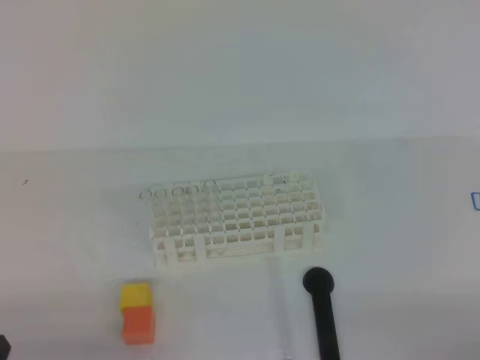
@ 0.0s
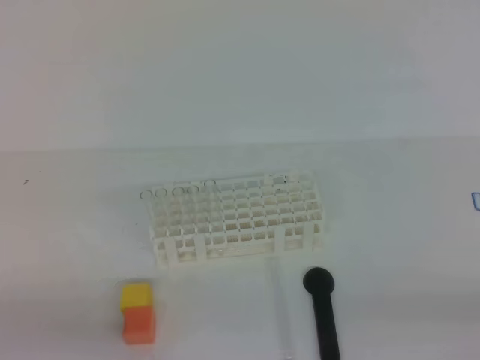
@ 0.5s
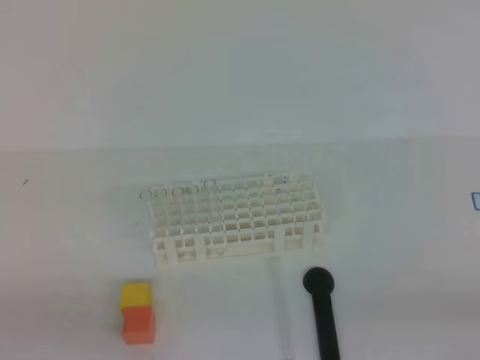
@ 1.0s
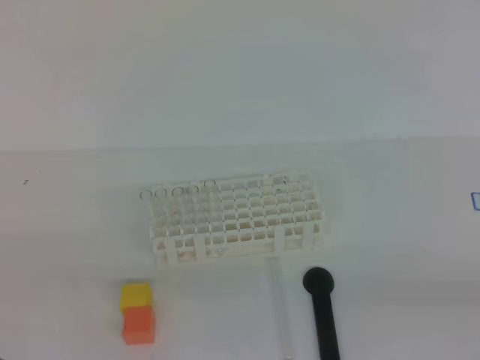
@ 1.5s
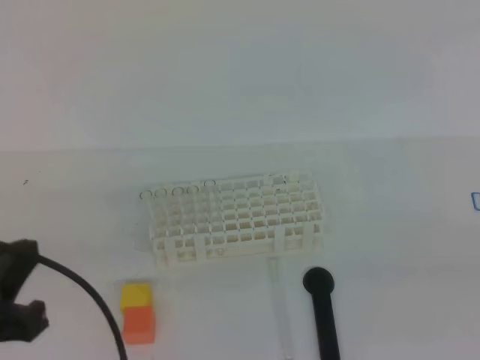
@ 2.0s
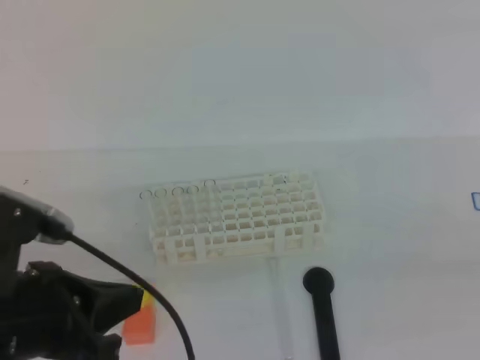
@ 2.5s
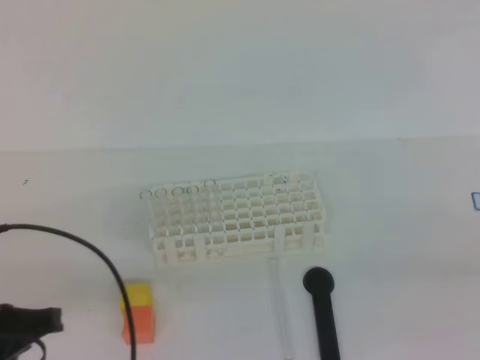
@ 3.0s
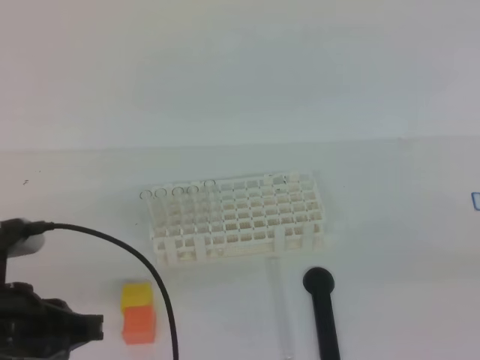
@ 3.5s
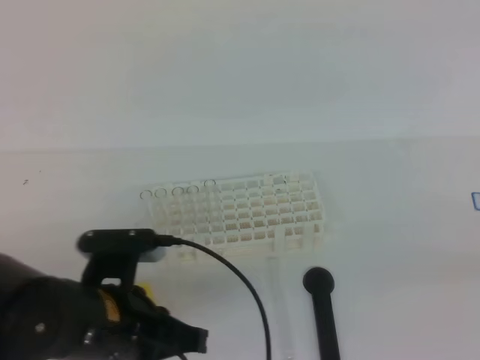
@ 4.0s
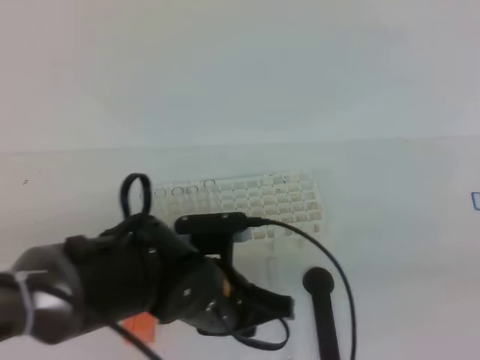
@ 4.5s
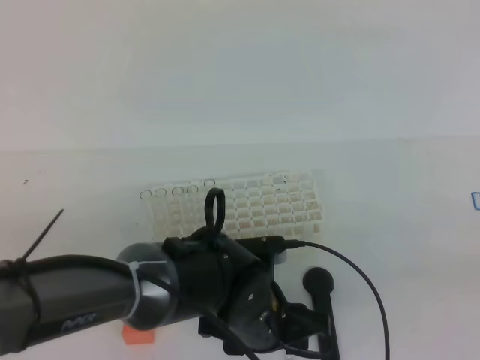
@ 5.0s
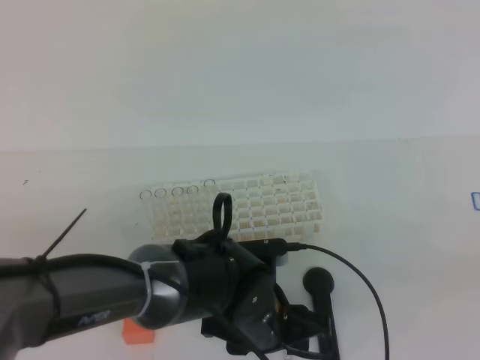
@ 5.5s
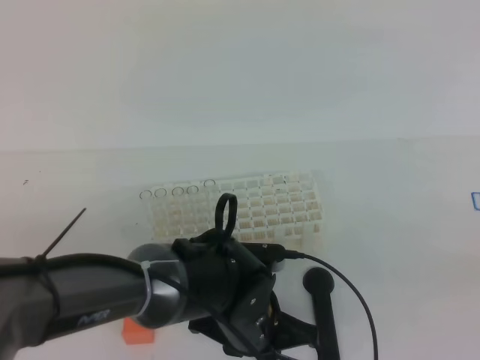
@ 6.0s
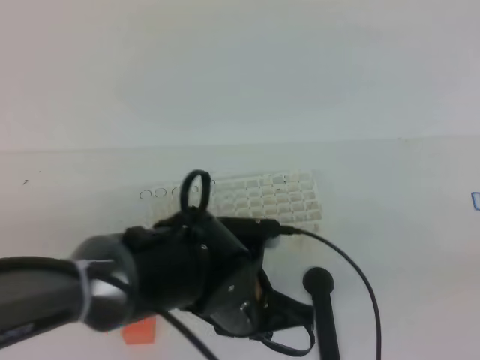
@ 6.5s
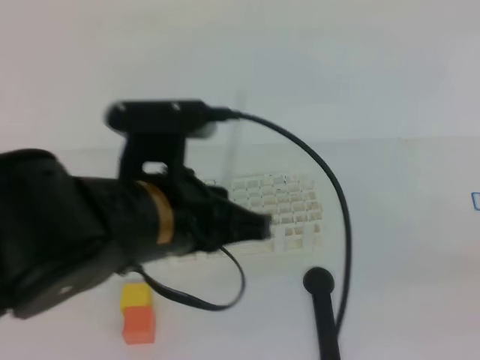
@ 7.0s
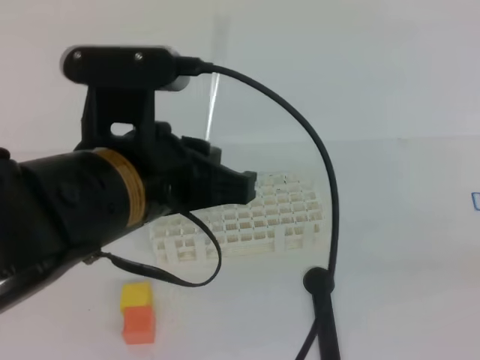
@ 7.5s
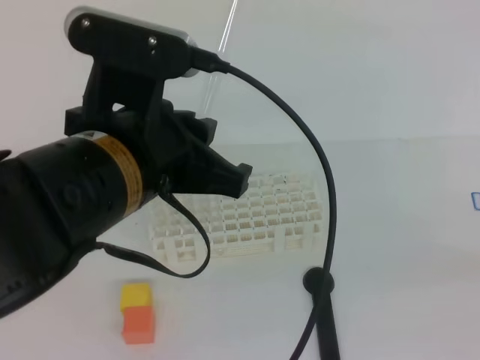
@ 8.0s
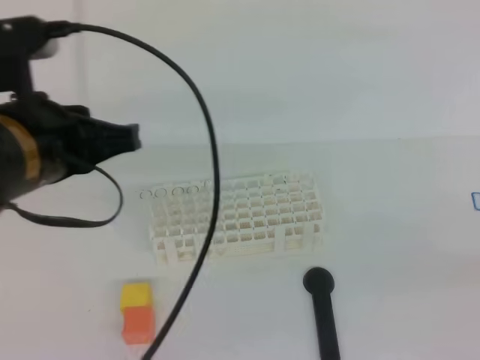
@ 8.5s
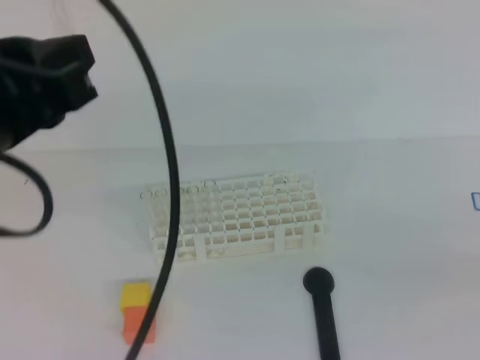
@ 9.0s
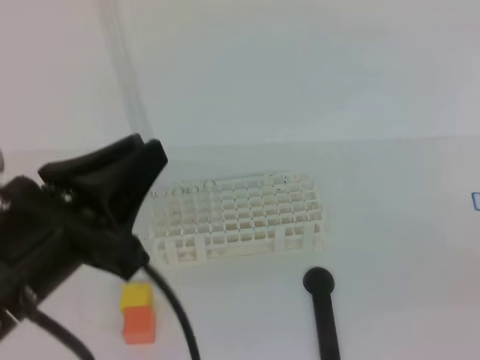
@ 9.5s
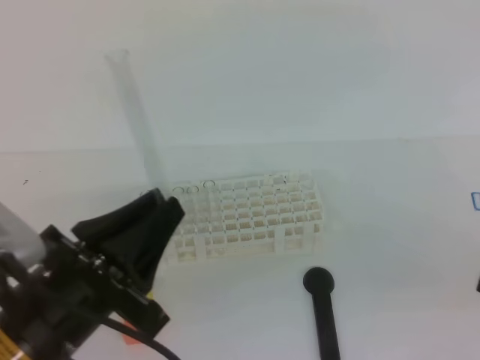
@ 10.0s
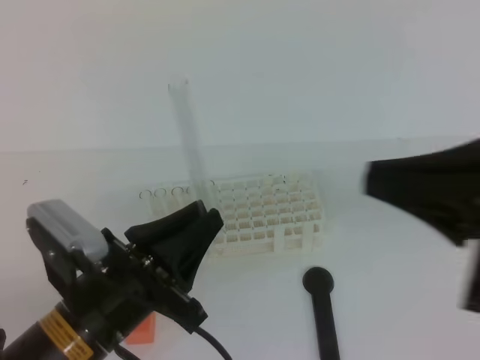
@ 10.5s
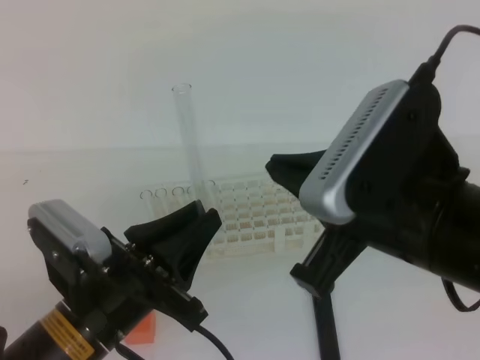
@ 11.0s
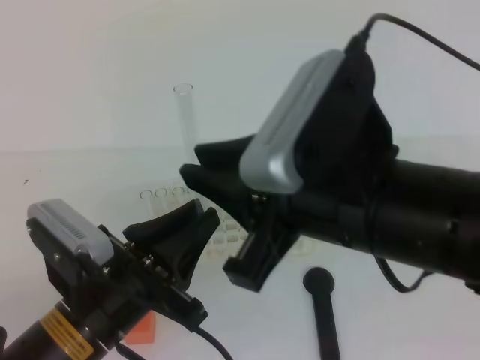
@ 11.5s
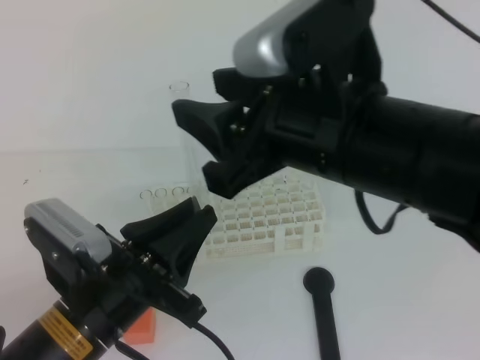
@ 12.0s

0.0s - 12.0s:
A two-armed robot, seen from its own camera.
0.0s - 2.0s: The left gripper travels upward and forward by roughly 15 cm.
2.0s - 4.0s: The left gripper goes approximately 15 cm to the right, downward and forward.
4.0s - 6.0s: The left gripper shifts roughly 15 cm to the right and downward, and opens, then closes once more.
6.0s - 8.0s: The left gripper shifts about 25 cm upward.
8.0s - 10.0s: The left gripper is displaced downward, to the left and backward by approximately 15 cm. Meanwhile the right gripper travels to the left by some 5 cm.
10.0s - 12.0s: The right gripper goes approximately 25 cm to the left and forward, and opens.

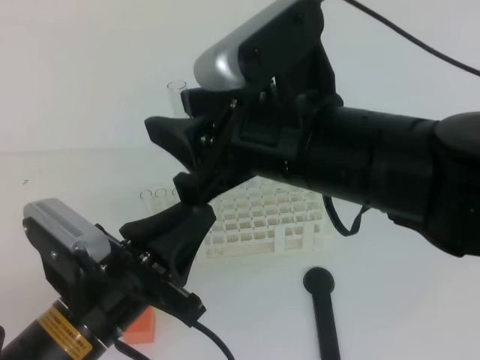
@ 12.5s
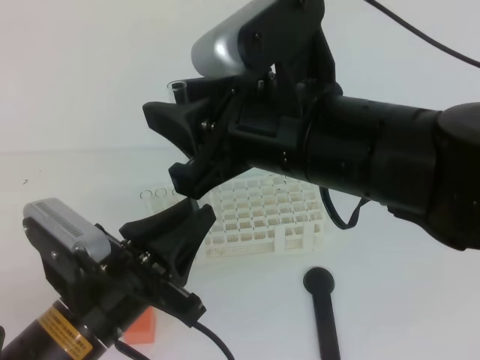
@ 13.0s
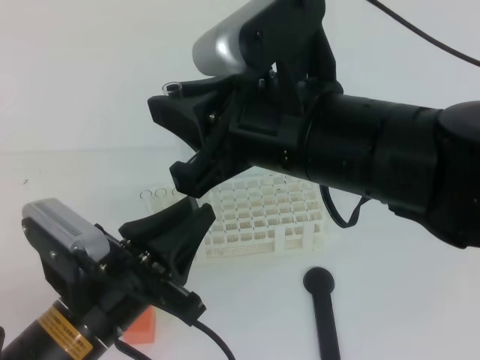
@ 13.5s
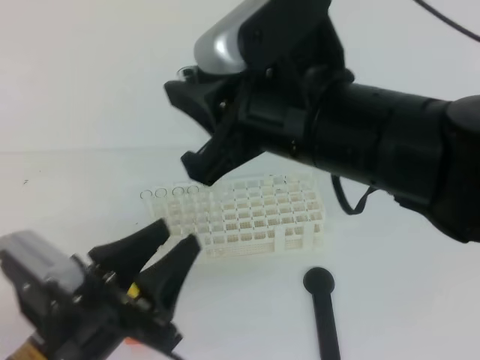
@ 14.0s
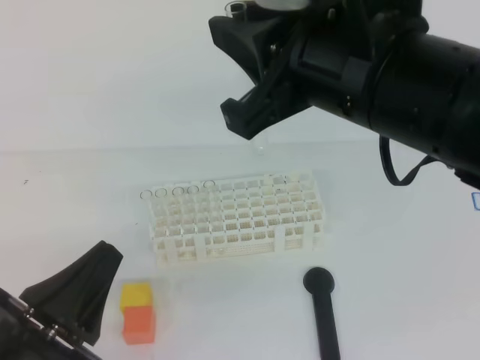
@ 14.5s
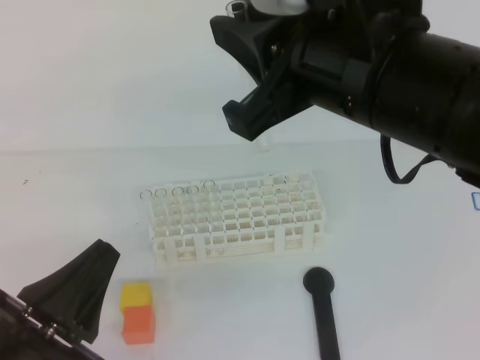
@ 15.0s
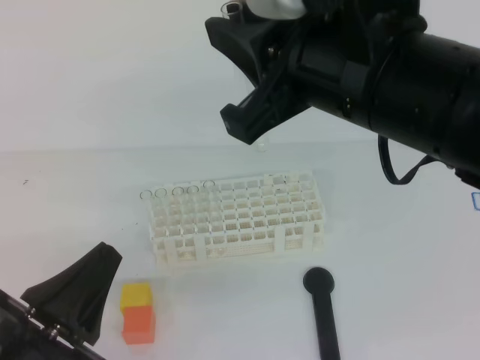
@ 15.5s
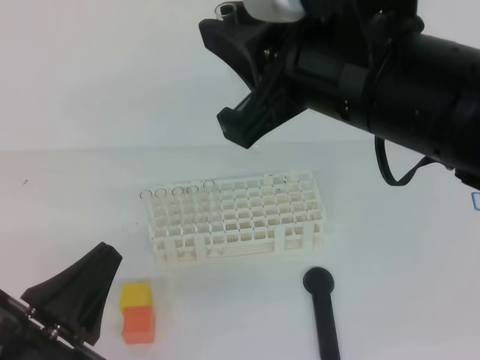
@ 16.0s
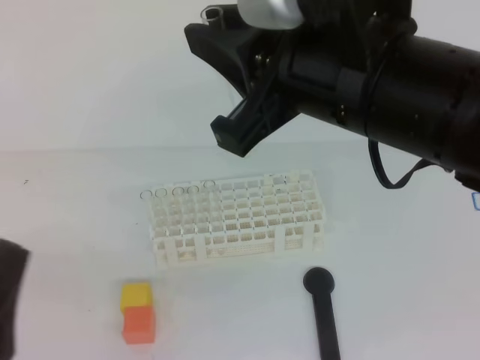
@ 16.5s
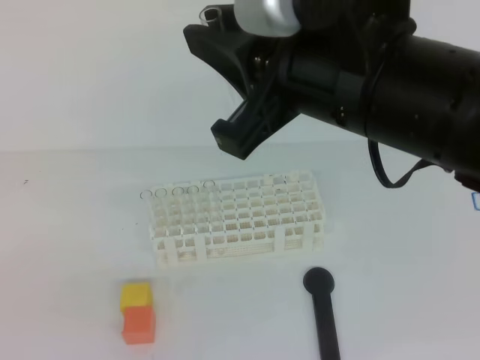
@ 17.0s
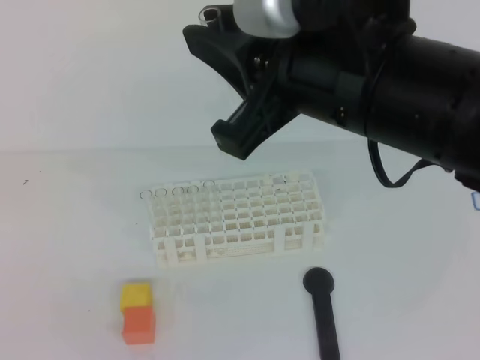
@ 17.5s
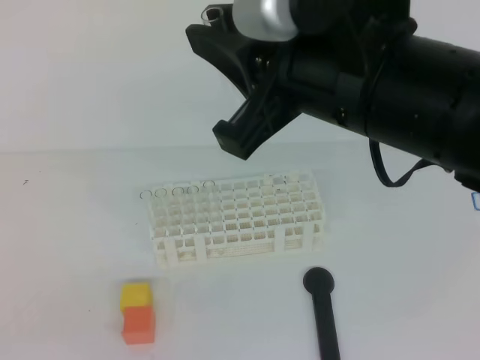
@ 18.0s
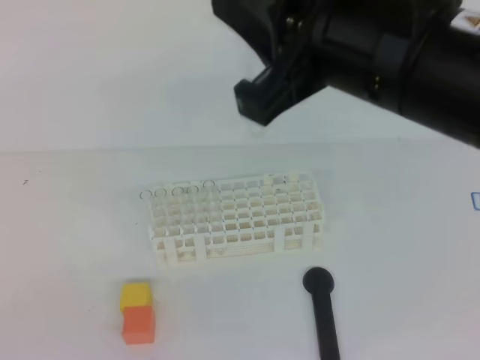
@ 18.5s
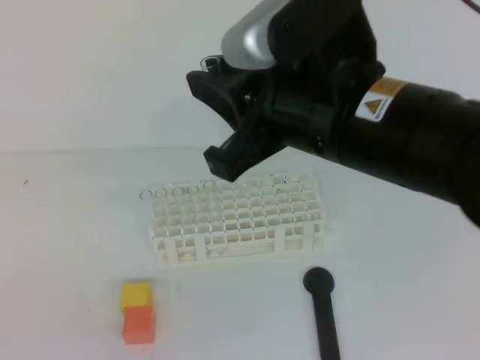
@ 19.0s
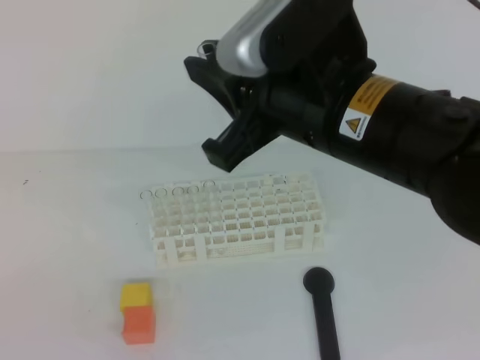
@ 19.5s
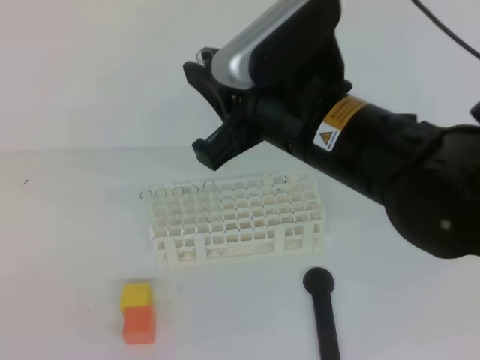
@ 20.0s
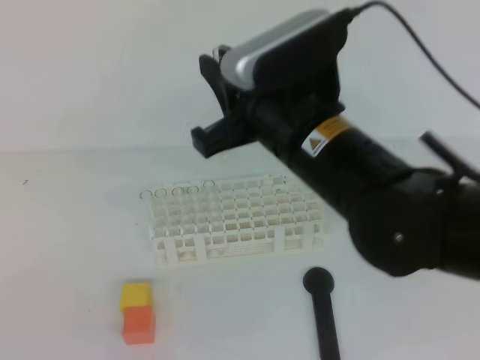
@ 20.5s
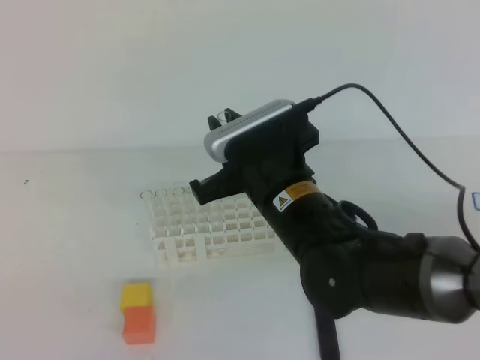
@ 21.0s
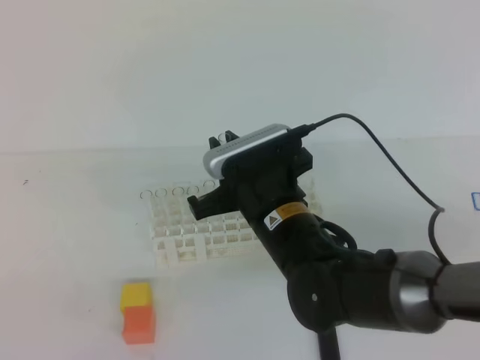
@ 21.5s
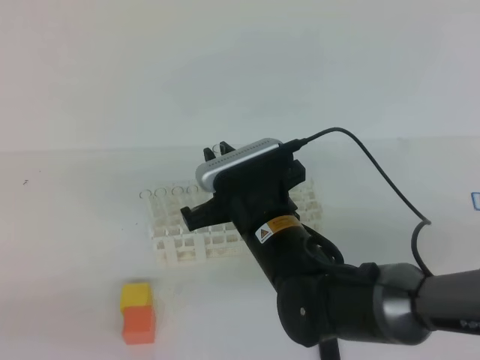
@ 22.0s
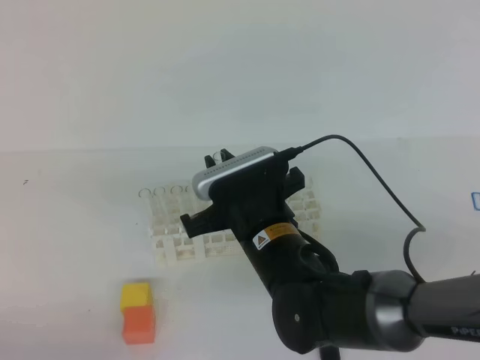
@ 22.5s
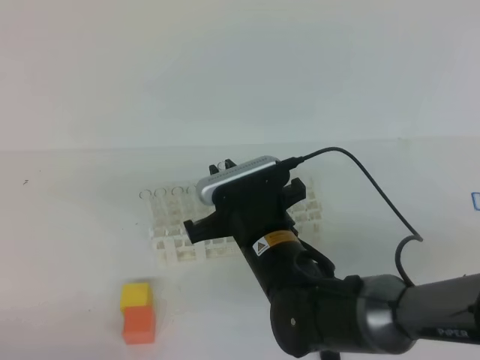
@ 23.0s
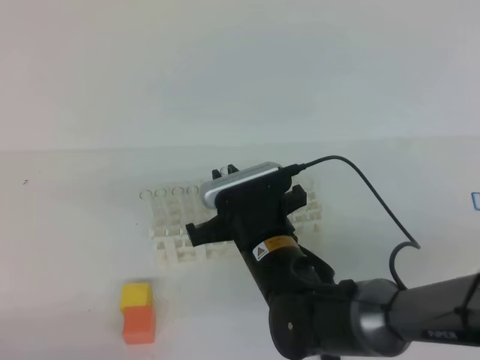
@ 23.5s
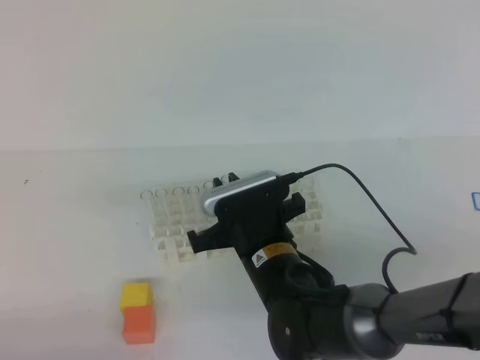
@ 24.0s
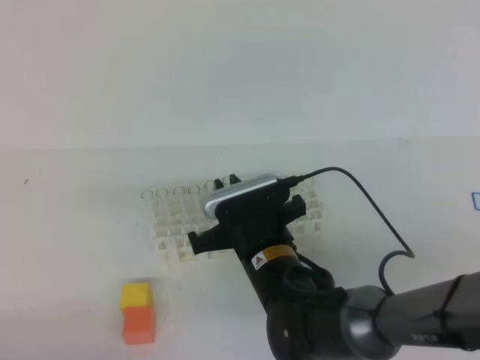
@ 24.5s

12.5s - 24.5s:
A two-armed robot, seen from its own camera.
12.5s - 14.5s: The left gripper goes some 10 cm to the left and backward, and opens, then closes once more. Meanwhile the right gripper shifts by roughly 5 cm, and closes up.
14.5s - 16.5s: The left gripper moves approximately 5 cm.
16.5s - 18.5s: The left gripper travels backward by approximately 5 cm.
18.5s - 20.5s: The right gripper shifts roughly 10 cm downward and forward.
20.5s - 22.5s: The right gripper travels downward by about 15 cm; the left gripper goes approximately 10 cm downward and forward.
22.5s - 24.5s: The grippers move only a little.

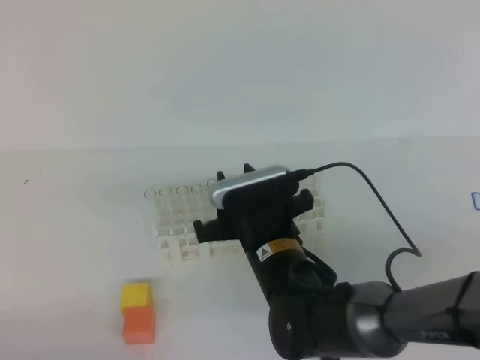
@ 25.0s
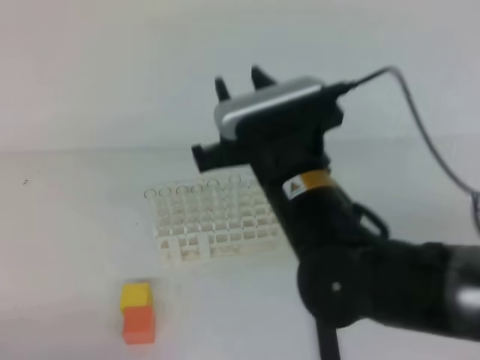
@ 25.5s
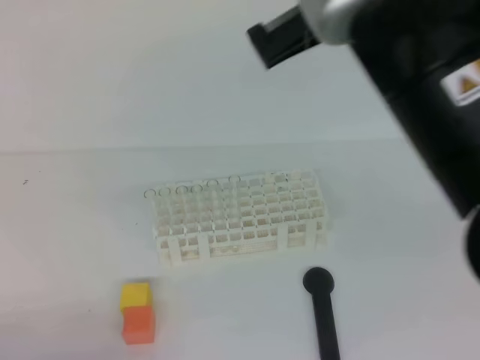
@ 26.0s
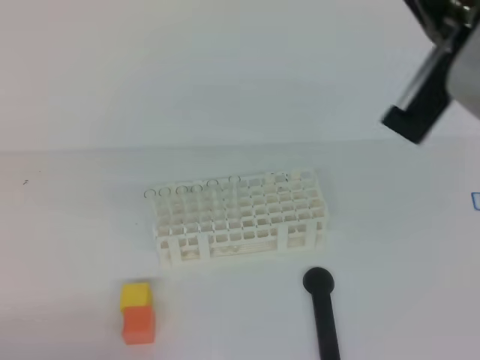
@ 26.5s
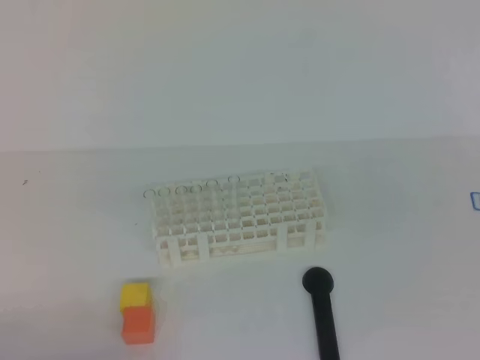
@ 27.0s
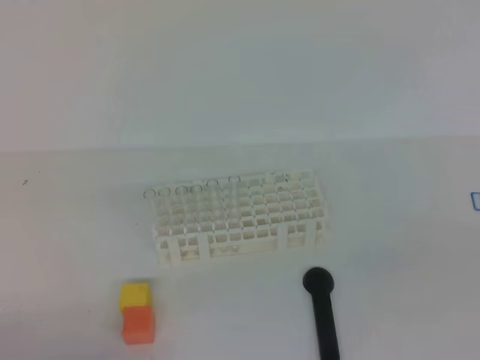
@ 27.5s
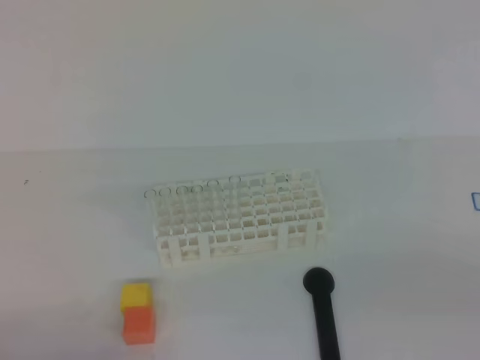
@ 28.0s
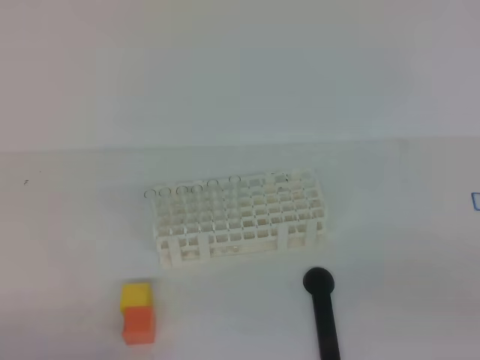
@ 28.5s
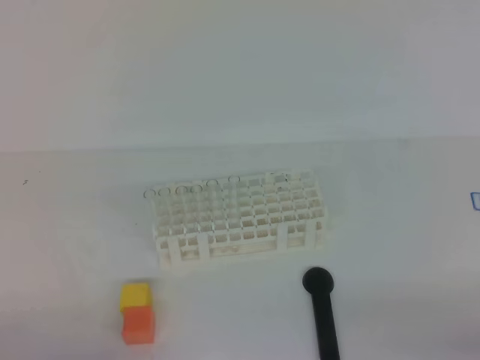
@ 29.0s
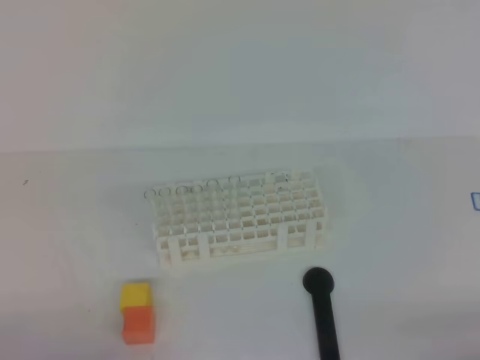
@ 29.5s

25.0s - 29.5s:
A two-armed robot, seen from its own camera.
25.0s - 27.0s: The right gripper shifts approximately 40 cm upward, to the right and backward, and closes.
